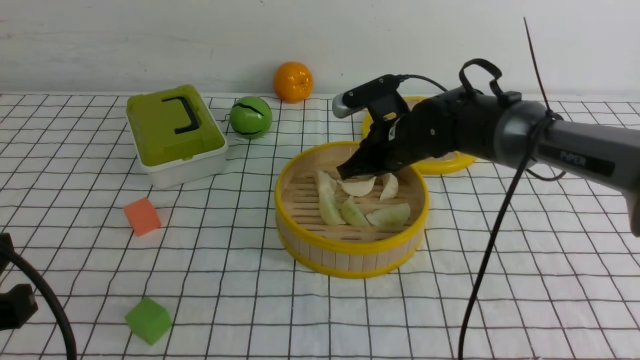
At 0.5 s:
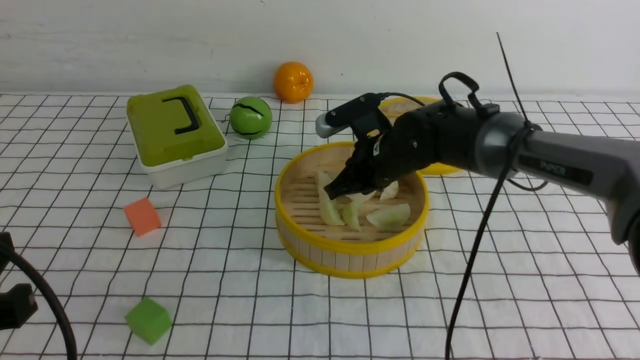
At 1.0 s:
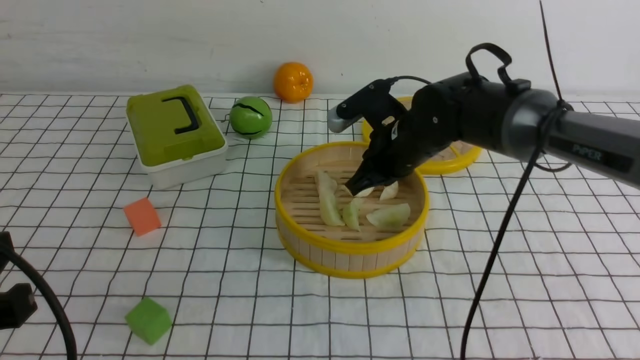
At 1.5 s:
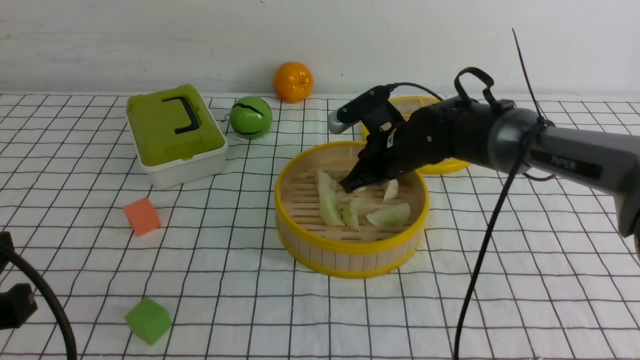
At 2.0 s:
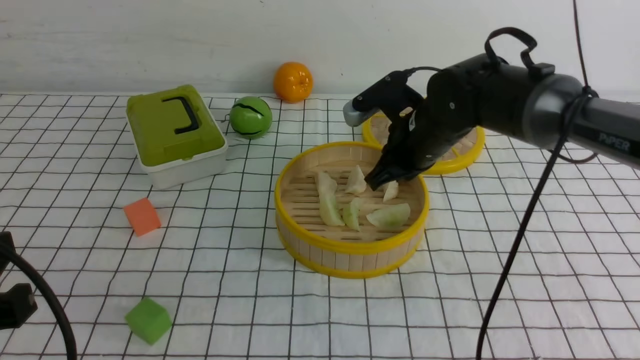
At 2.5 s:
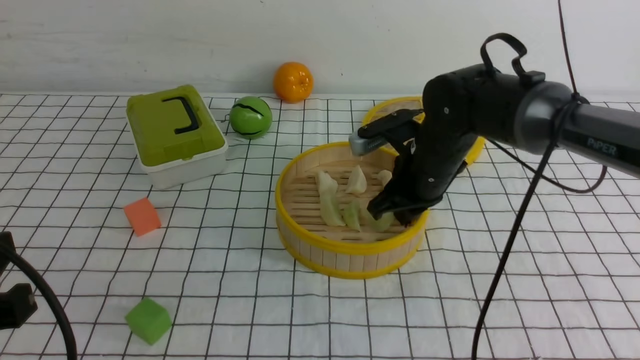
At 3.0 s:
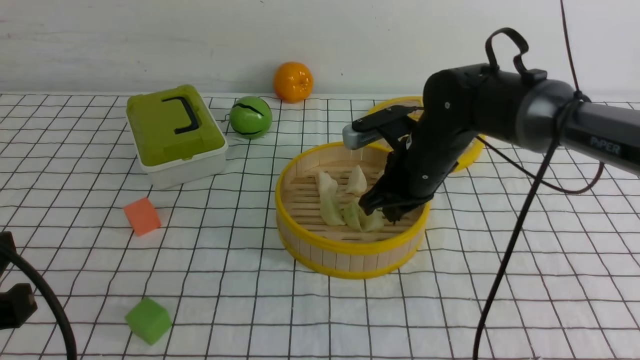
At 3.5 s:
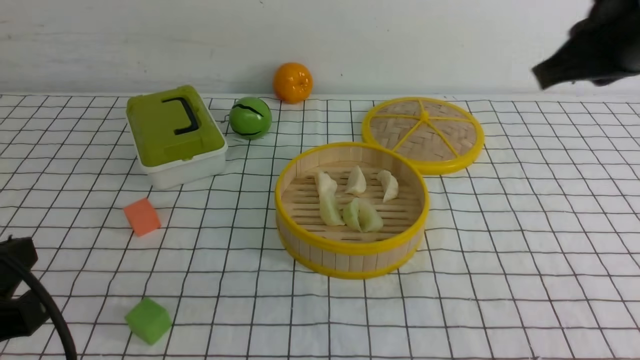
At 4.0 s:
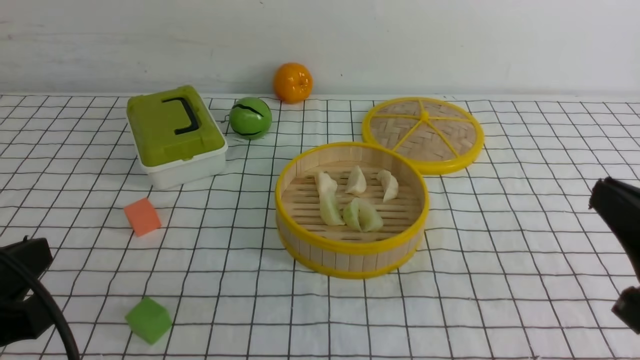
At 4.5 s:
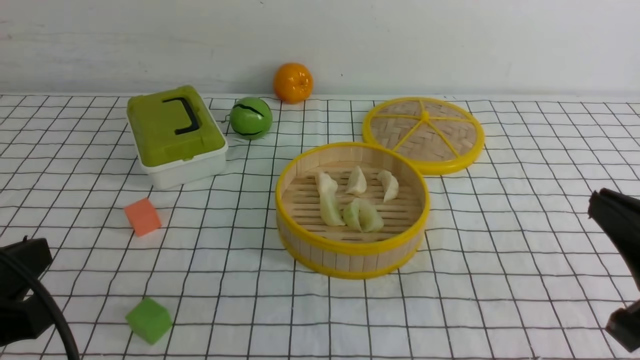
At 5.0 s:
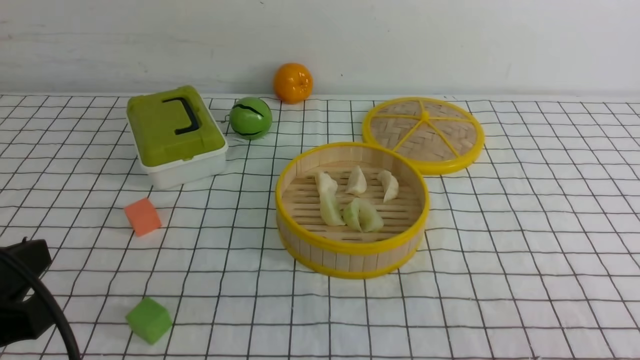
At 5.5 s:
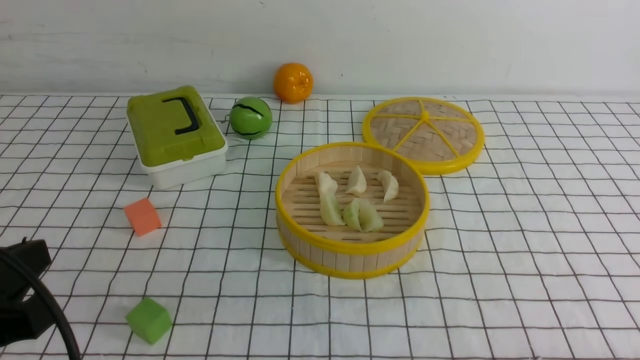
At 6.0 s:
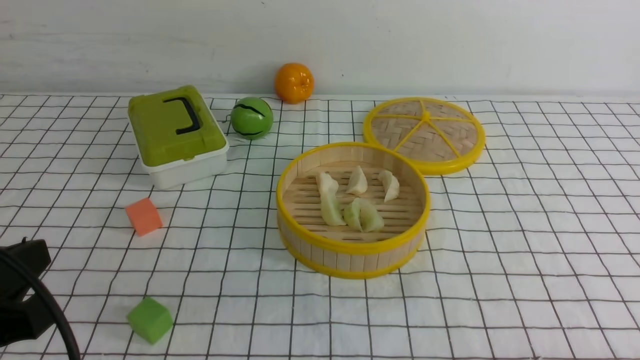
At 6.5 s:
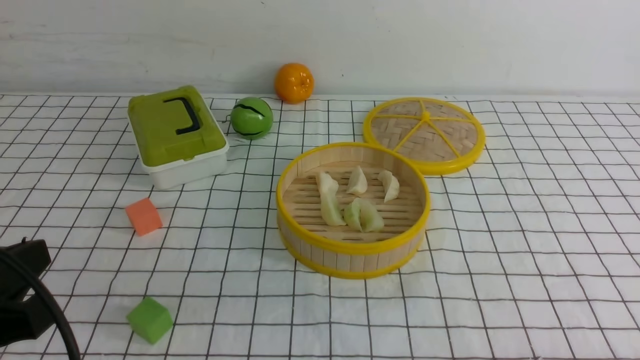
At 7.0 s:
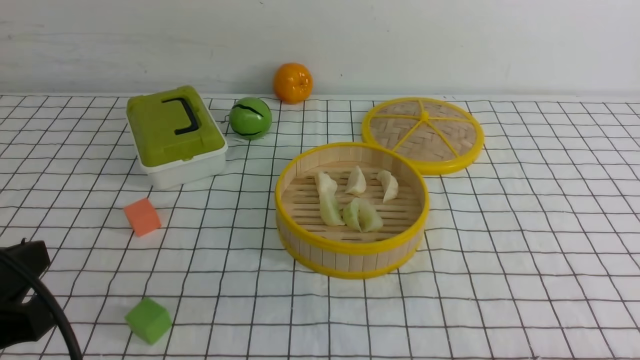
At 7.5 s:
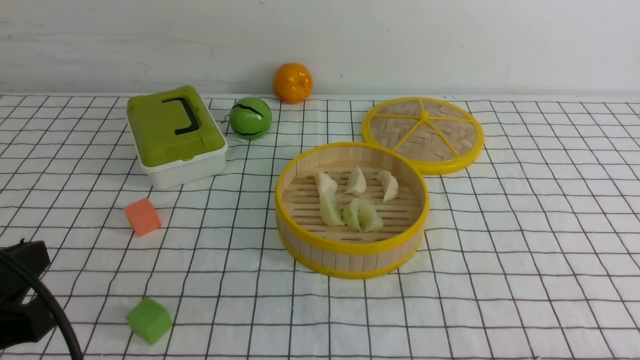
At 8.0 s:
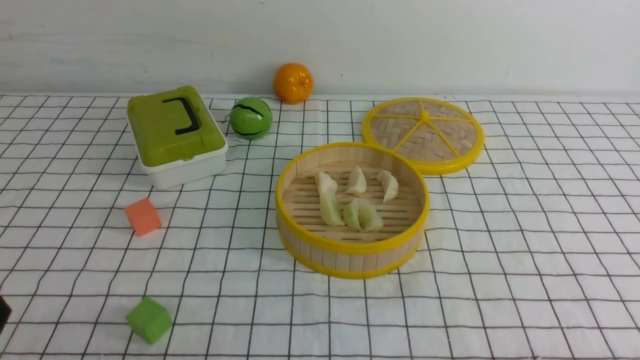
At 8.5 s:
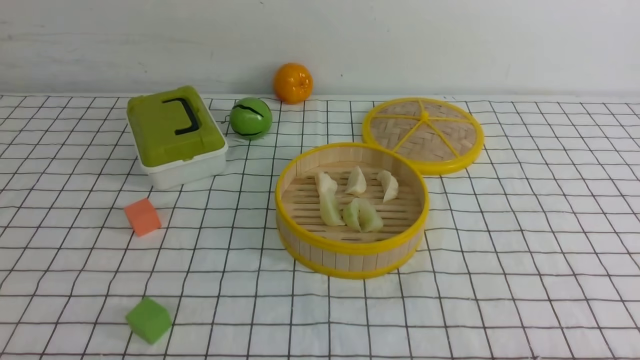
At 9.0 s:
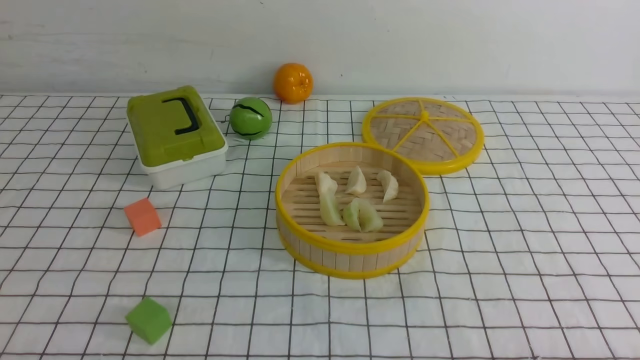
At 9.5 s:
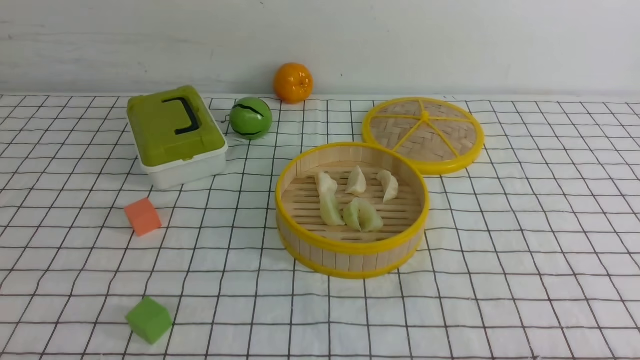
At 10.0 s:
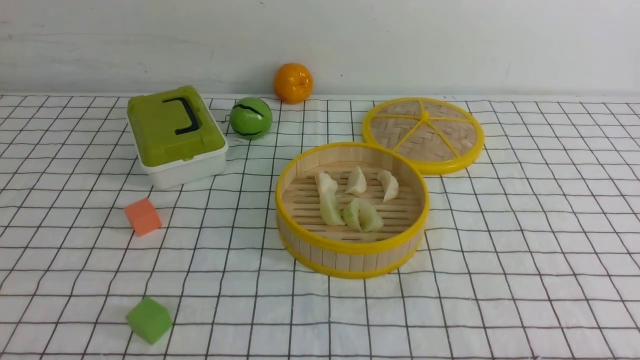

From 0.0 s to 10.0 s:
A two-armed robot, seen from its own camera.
Task of the whole recording: put the dumplings into the steamer on the table with the white tablecloth.
From 0.0 s to 2.0 s: The grippers make only small movements.
From 2.0 s to 4.0 s: The right gripper travels backward and to the right by some 30 cm.
From 4.0 s to 6.0 s: The right gripper travels downward and backward by roughly 15 cm.
From 6.0 s to 8.0 s: The left gripper travels downward by roughly 5 cm.

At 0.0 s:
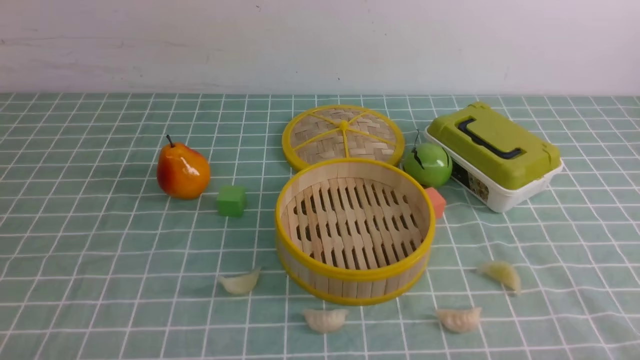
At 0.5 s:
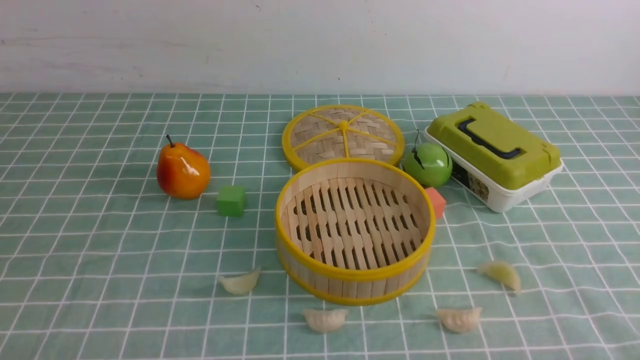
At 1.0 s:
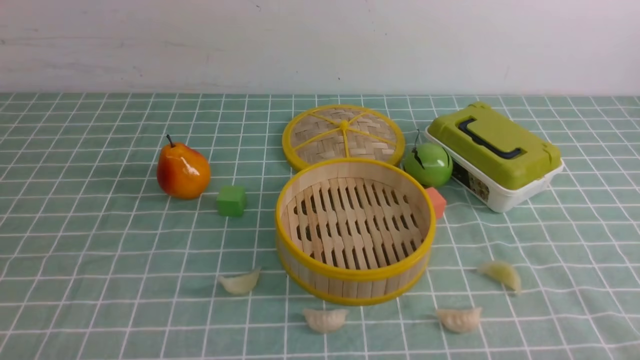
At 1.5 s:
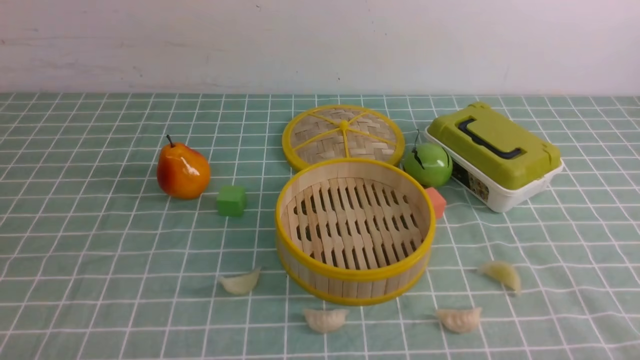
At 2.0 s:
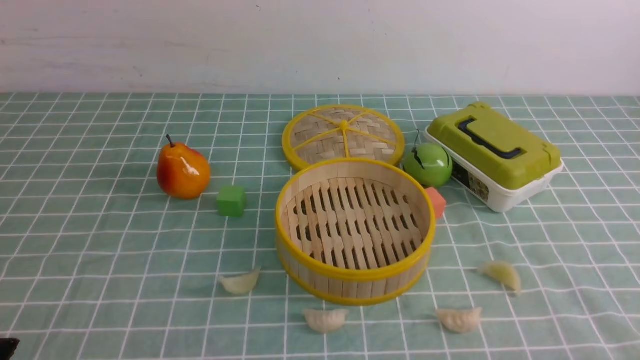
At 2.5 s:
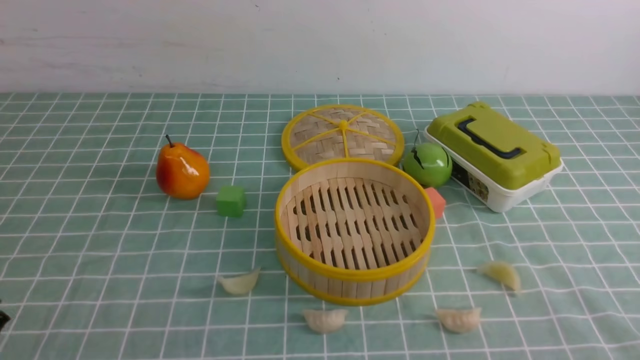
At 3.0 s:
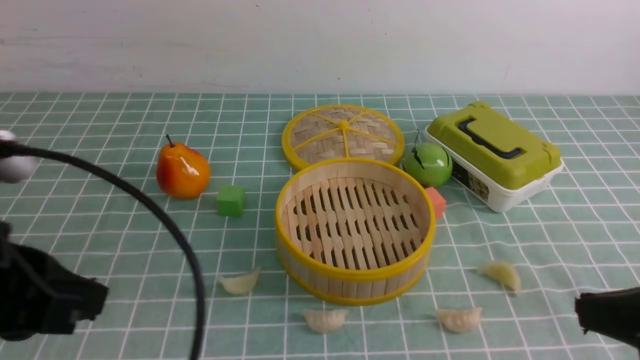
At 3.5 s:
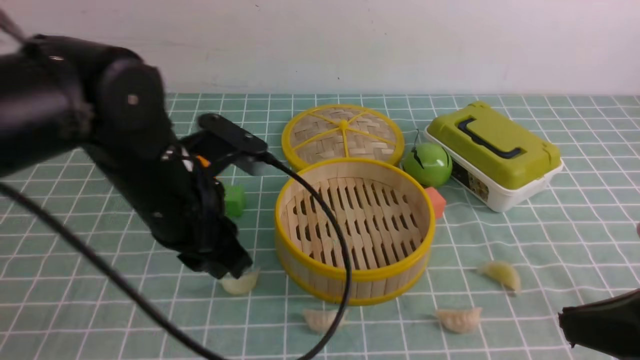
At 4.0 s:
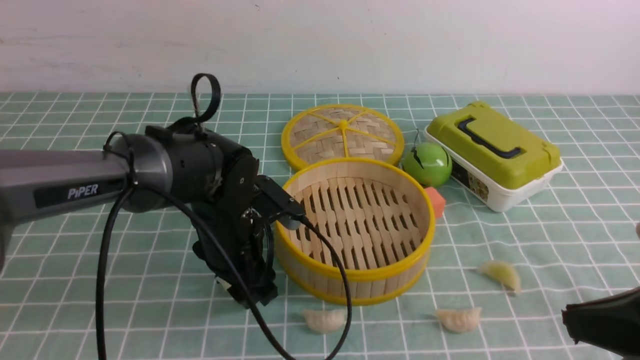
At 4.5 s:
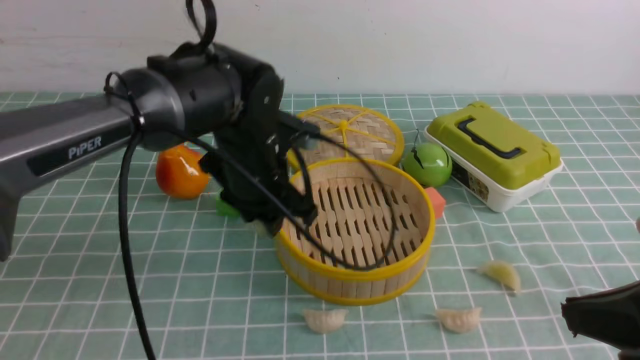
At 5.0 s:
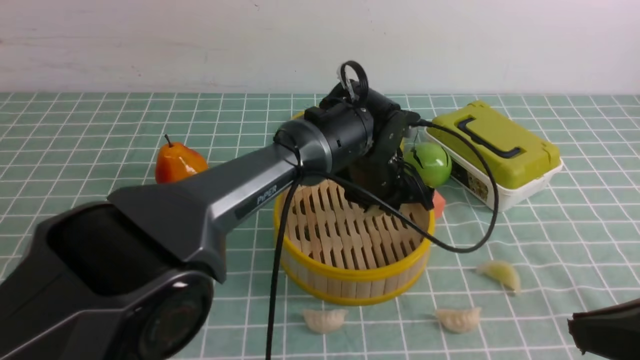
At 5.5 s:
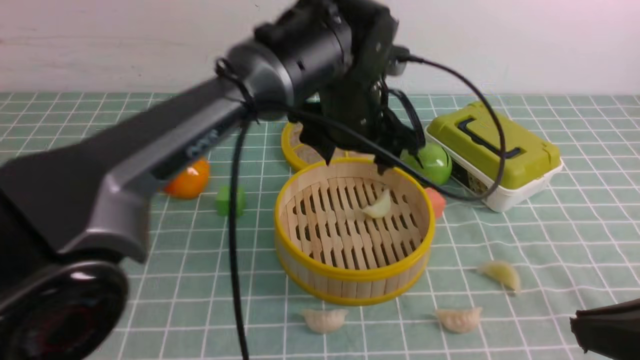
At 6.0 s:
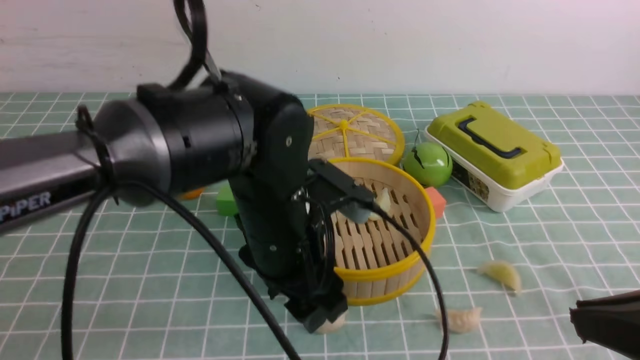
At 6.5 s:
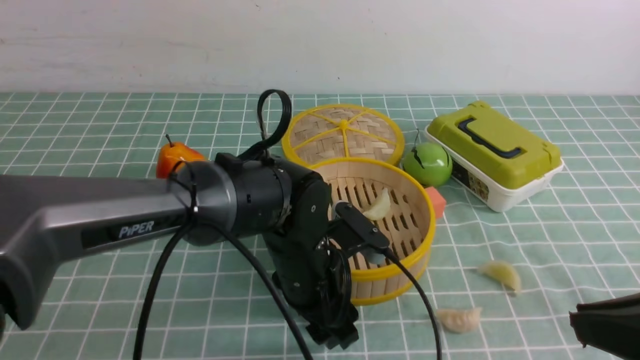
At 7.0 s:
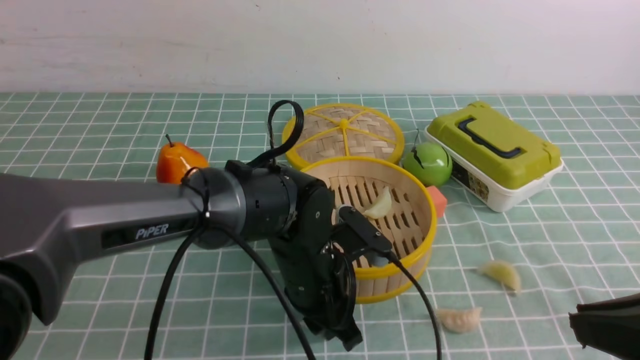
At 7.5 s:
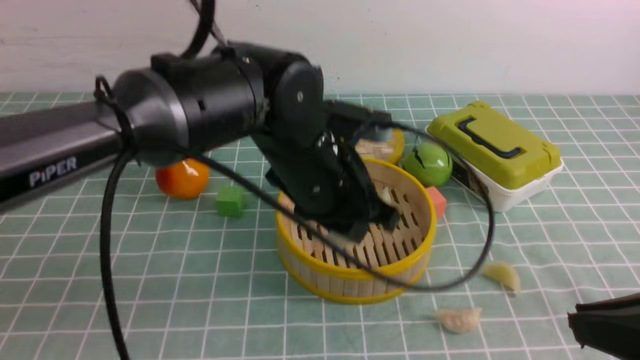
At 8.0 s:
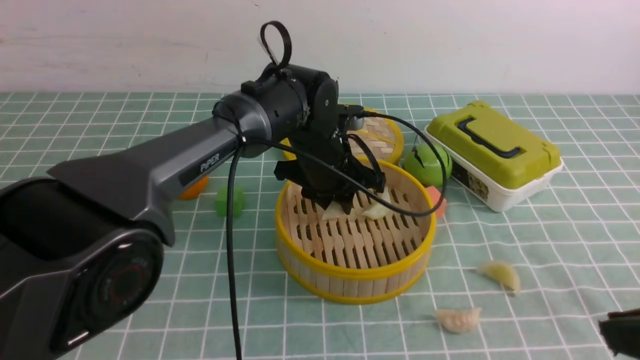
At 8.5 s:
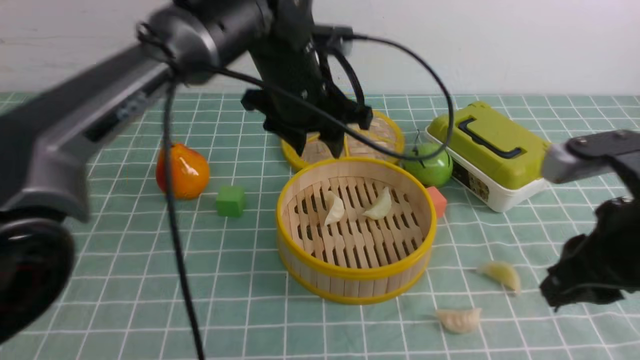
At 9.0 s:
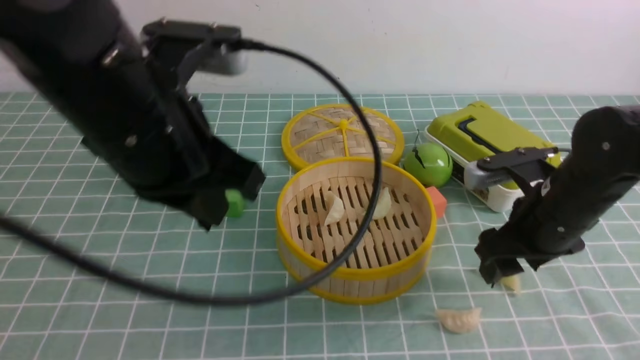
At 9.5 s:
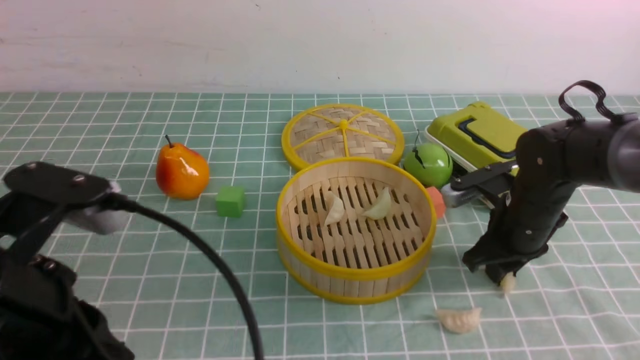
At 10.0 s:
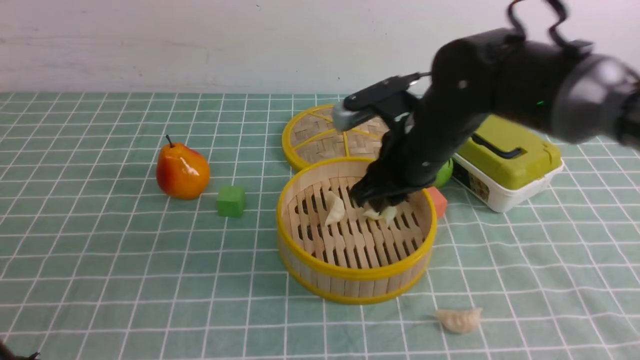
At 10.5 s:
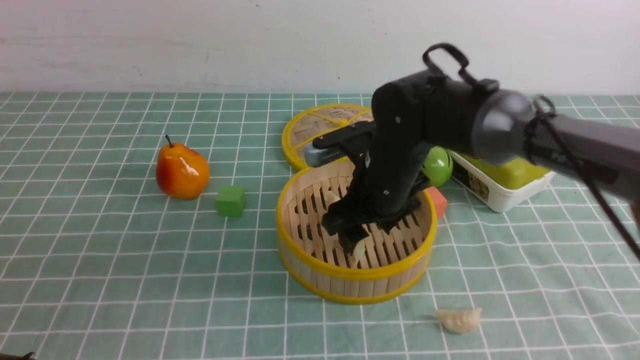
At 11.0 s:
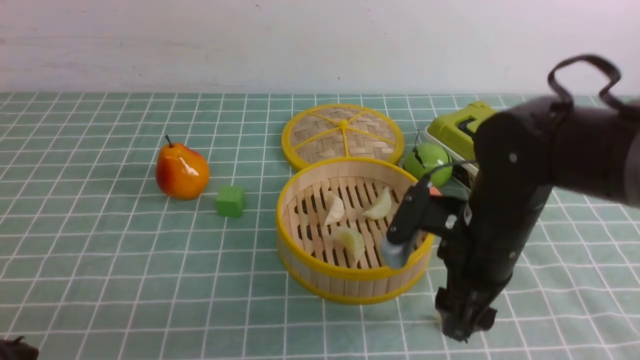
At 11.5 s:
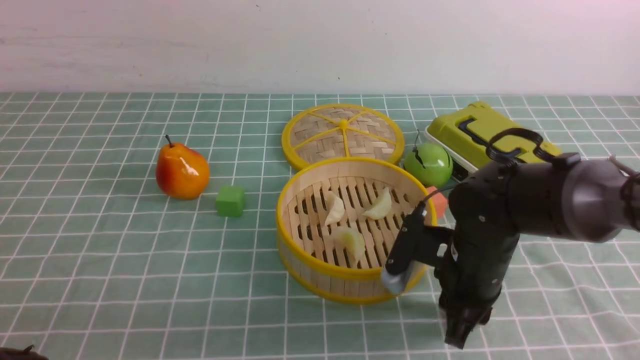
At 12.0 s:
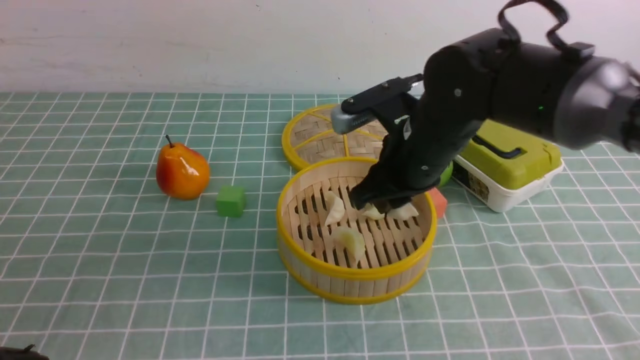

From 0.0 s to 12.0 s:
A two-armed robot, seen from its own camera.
Task of the whole recording: put the dumplings into the steamer on the table with the blue tablecloth.
Step, from 0.0 s to 4.0 s: use the left arm to grab a dumpling.
Step, from 4.5 s to 5.0 s: use the left arm to put the dumpling into the steamer.
Step, from 6.0 s to 6.5 s: use the left arm to grab a dumpling.
Step, from 7.0 s to 8.0 s: use the left arm to put the dumpling into the steamer.
Step, from 8.5 s to 9.0 s: use the right arm to grab a dumpling.
Step, from 9.5 s to 10.5 s: use the right arm to put the dumpling into the steamer.
Step, from 11.0 s to 11.5 s: use the right arm to grab a dumpling.
From 2.0 s to 4.0 s: The left gripper heads forward and to the right, covering roughly 35 cm, and closes, then opens again. The right gripper is displaced upward and forward by some 15 cm, and closes its fingers.
From 4.0 s to 6.0 s: The left gripper is displaced upward, to the right and backward by some 10 cm.
From 6.0 s to 8.0 s: The left gripper moves forward, roughly 15 cm, and closes.
From 8.0 s to 10.0 s: The right gripper travels forward and to the left by some 30 cm, and opens and closes again, while the left gripper moves backward and to the left, roughly 40 cm, and closes up.
From 10.0 s to 12.0 s: The right gripper travels backward and back again, roughly 10 cm each way, and opens, then closes again.
